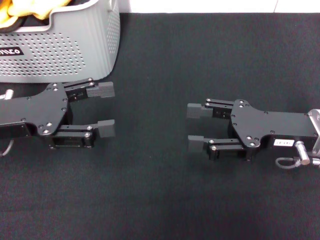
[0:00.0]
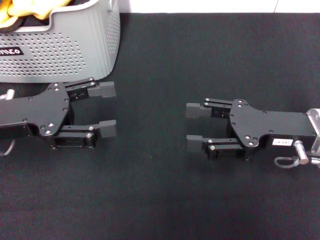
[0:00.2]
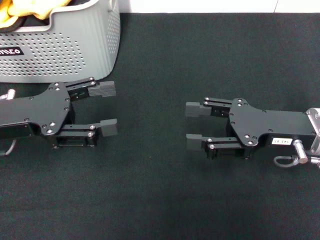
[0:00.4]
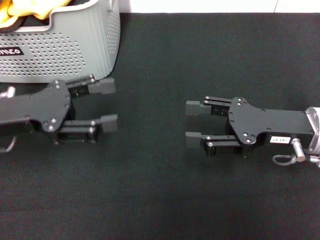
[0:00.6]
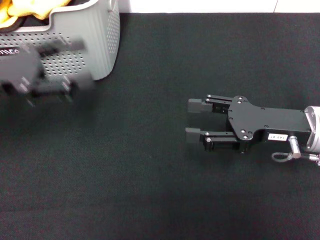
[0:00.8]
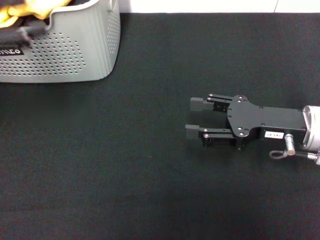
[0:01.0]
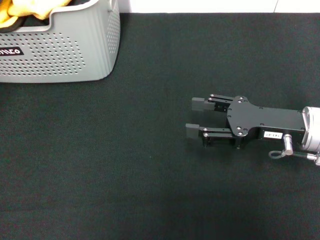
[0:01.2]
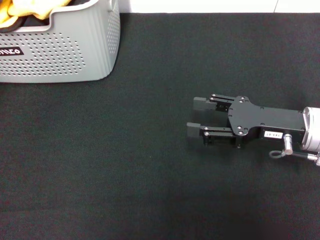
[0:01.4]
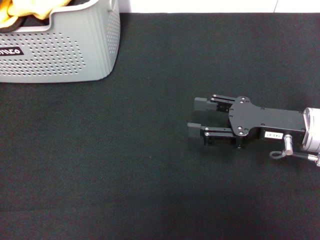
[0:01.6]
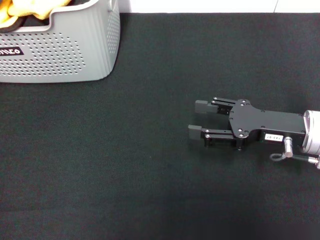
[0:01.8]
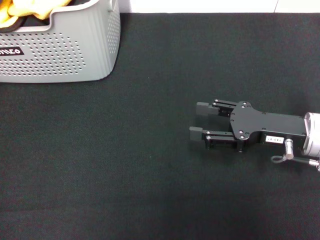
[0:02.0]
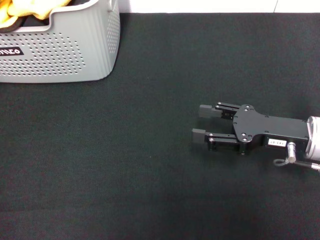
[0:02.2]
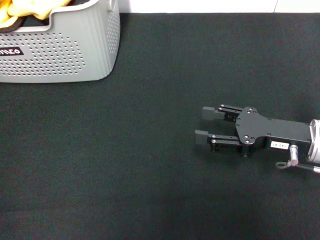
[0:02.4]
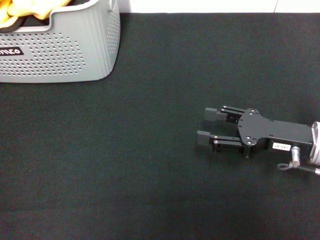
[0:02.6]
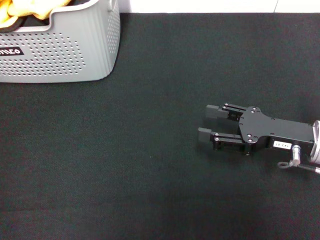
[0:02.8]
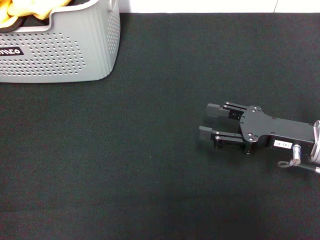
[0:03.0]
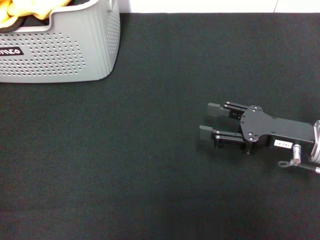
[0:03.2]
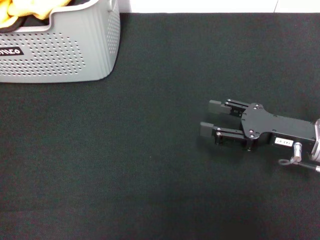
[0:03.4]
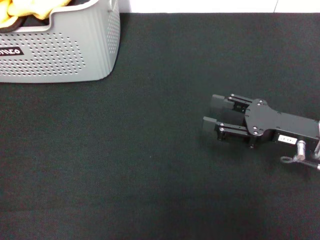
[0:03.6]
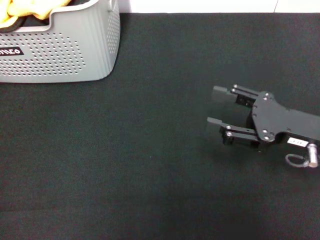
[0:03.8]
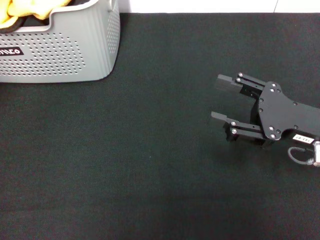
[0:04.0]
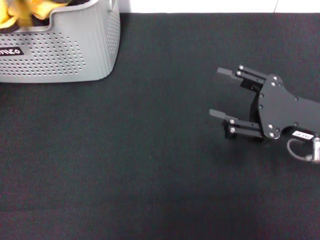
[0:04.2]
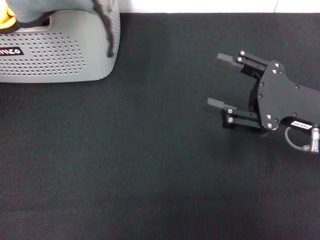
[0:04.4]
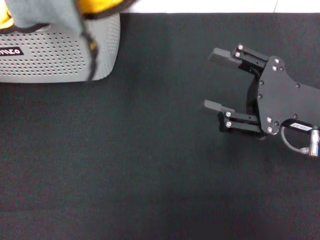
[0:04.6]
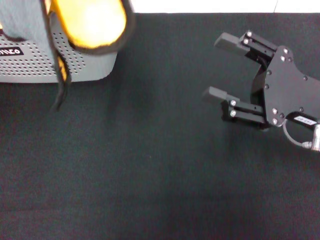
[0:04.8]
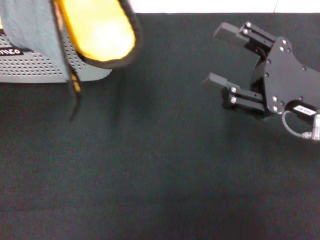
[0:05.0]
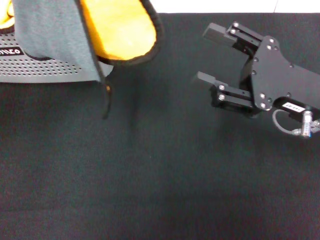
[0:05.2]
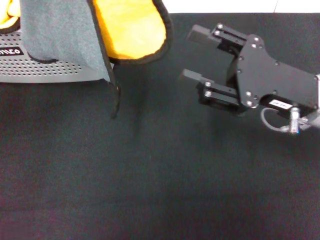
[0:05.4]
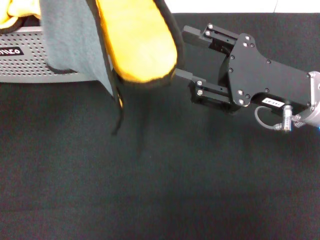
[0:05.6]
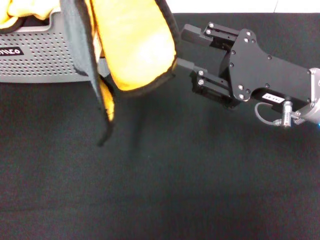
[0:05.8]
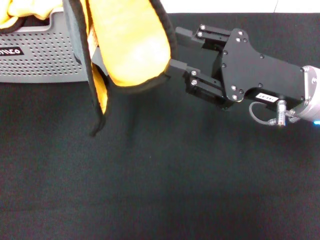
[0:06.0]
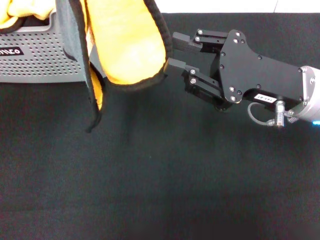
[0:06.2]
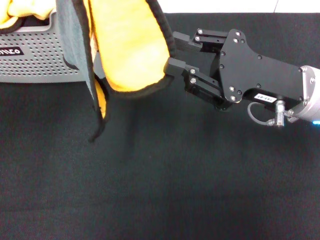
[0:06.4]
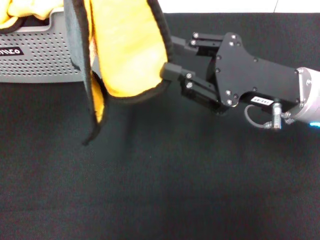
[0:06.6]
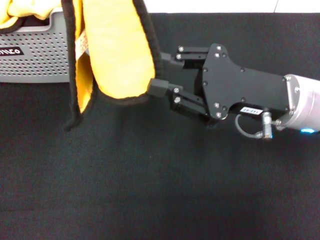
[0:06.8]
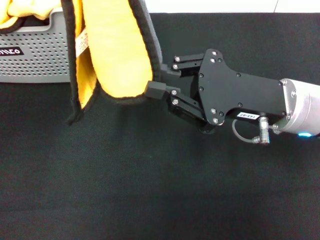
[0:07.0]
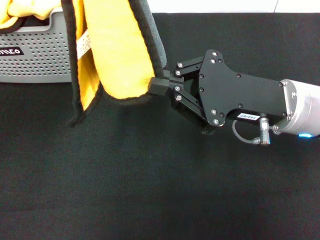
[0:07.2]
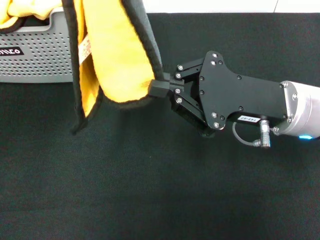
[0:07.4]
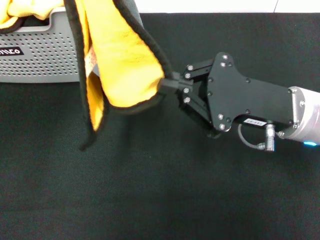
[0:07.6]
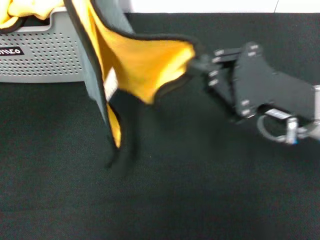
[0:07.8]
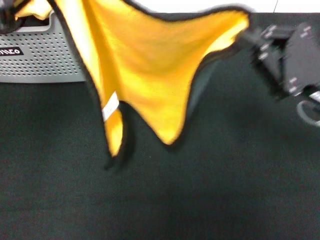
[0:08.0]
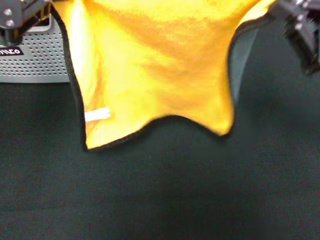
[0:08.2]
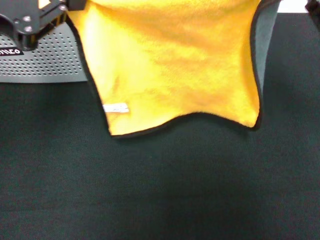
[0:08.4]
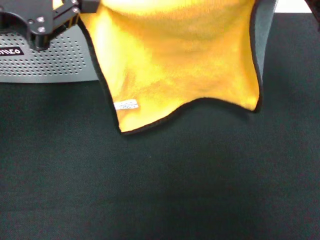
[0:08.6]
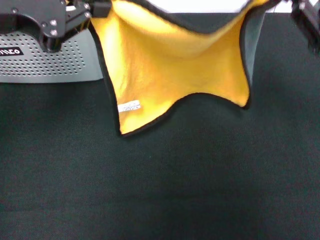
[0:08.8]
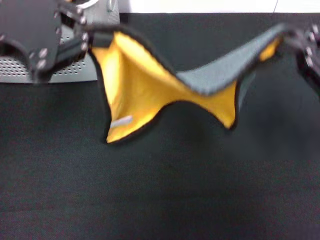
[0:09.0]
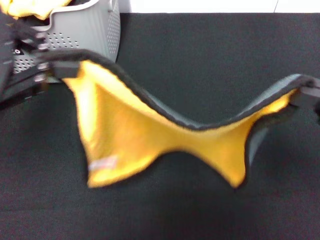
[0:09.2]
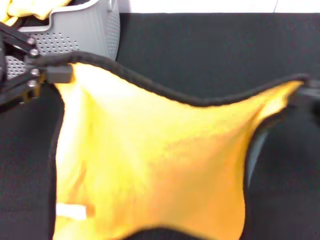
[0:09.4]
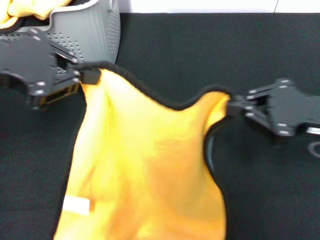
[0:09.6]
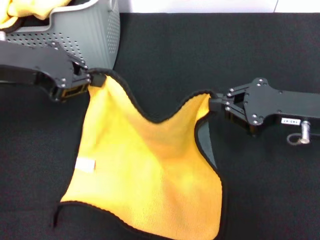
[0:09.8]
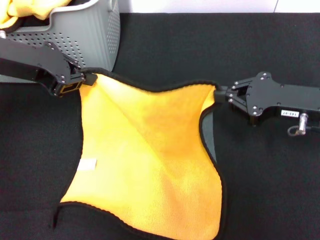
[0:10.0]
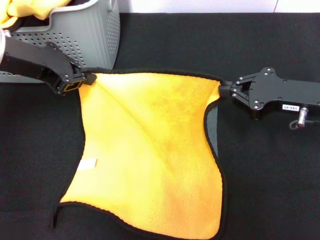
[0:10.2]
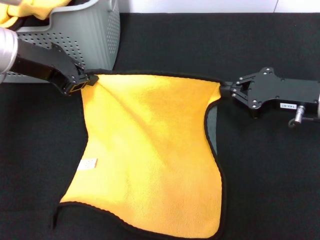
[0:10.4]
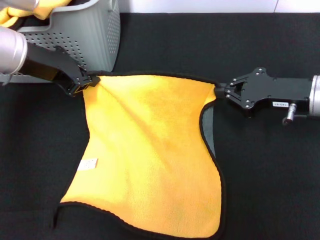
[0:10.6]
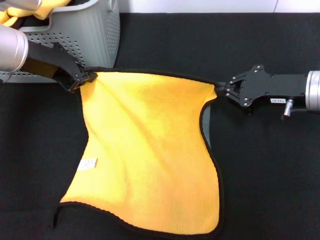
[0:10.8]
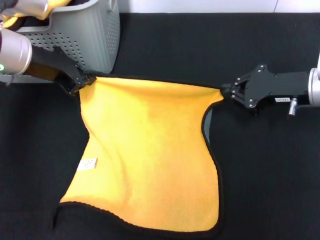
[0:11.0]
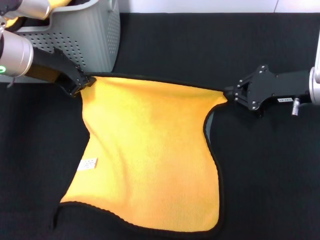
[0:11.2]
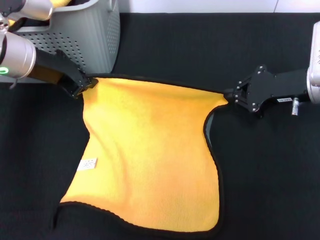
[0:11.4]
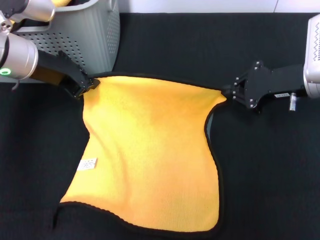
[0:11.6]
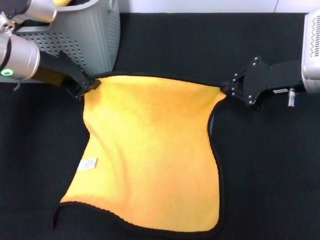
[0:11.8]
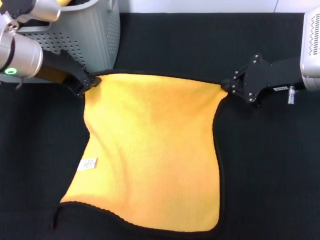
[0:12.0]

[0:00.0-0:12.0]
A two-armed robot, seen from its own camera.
Task of the whole recording: pick up the towel from the storage box and lay it flat on the black tablecloth.
Step, 0:00.0 to 0:03.4: Pick up a towel with the left gripper.
Step, 0:03.6 to 0:07.2: Spread the towel flat with the left gripper.
0:00.0 to 0:01.6: The left gripper heads upward and to the left, covering roughly 20 cm.
0:03.0 to 0:04.4: The left gripper is displaced upward, backward and to the right by some 20 cm, and closes its fingers.
0:04.4 to 0:06.0: The left gripper ends up approximately 5 cm from where it was; the right gripper shifts about 5 cm to the left.
0:06.0 to 0:07.6: The right gripper closes.
0:07.6 to 0:09.0: The left gripper goes about 5 cm downward; the right gripper heads to the right, covering roughly 10 cm.
0:09.0 to 0:10.4: The left gripper is displaced downward and forward by roughly 15 cm, while the right gripper heads forward and downward, covering some 10 cm.
0:10.4 to 0:12.0: The right gripper travels forward by approximately 5 cm.

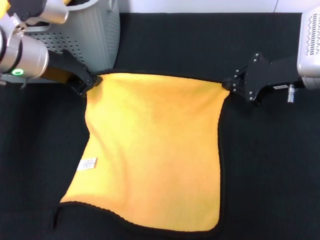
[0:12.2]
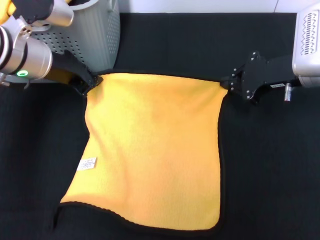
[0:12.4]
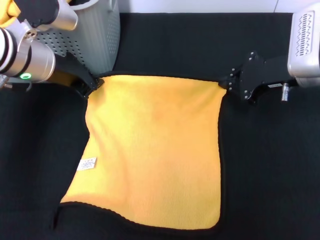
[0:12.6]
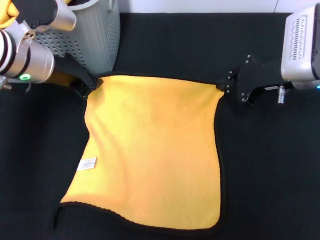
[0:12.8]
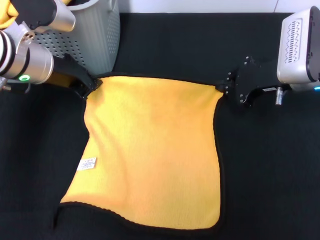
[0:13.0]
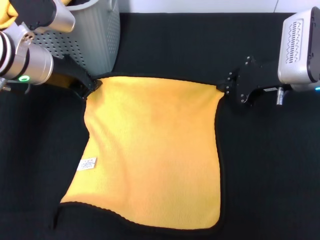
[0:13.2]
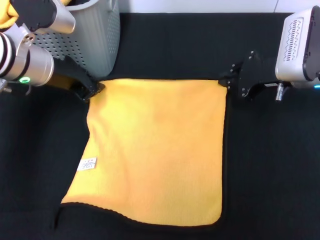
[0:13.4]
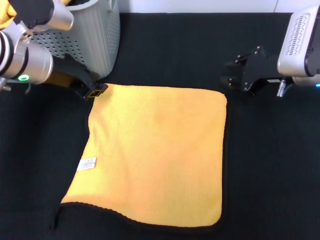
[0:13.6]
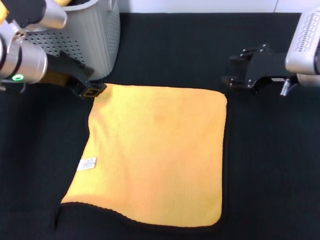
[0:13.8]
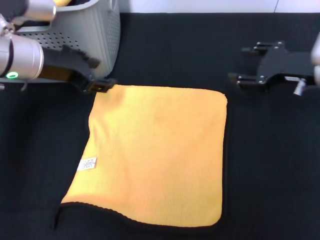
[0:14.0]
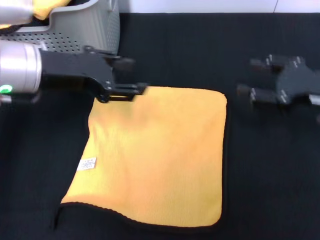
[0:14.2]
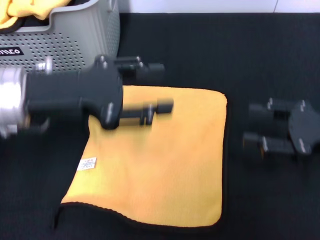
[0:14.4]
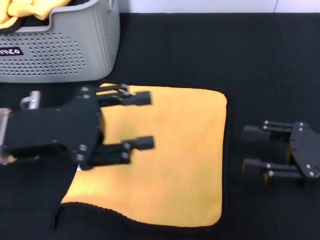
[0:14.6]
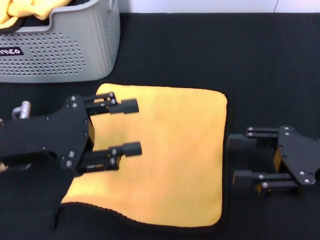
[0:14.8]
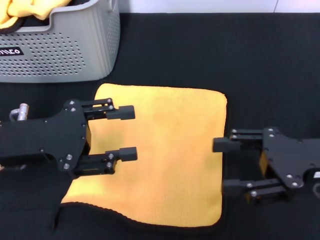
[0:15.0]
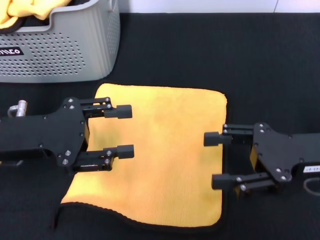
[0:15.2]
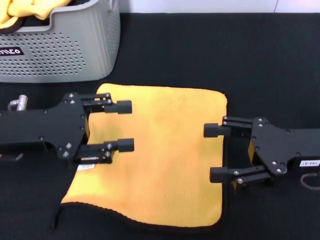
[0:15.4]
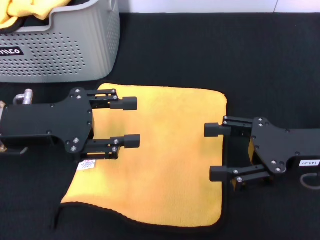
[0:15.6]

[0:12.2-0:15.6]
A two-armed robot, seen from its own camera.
Task of the whole recording: pick up the towel from the storage box and lay it flat on the black tablecloth.
0:12.2 to 0:13.8: The left gripper opens up.
0:13.8 to 0:15.6: The two grippers go some 10 cm backward. The right gripper opens up.

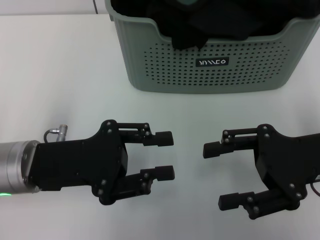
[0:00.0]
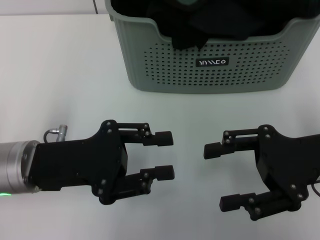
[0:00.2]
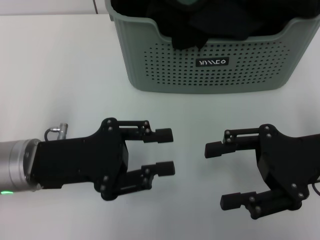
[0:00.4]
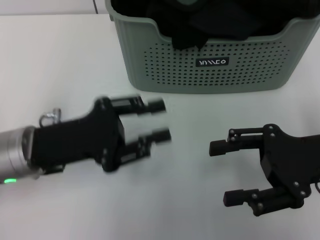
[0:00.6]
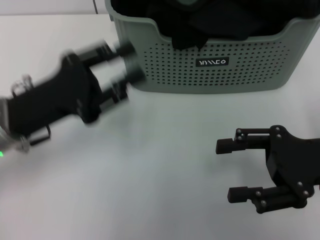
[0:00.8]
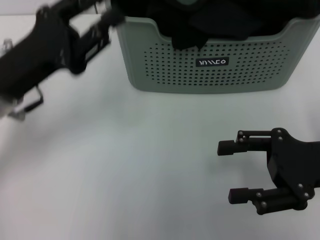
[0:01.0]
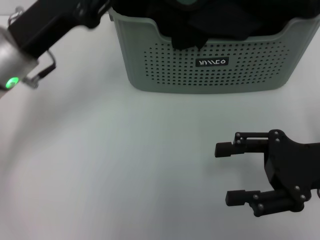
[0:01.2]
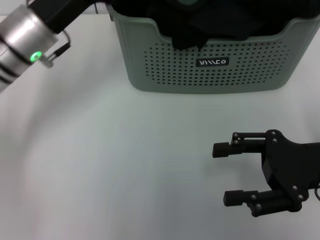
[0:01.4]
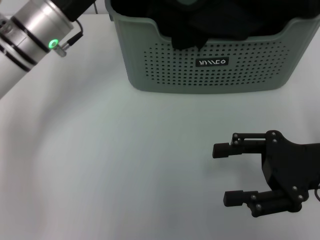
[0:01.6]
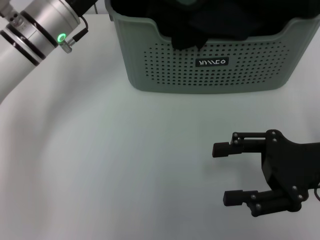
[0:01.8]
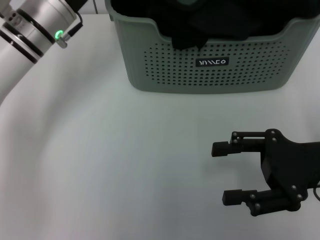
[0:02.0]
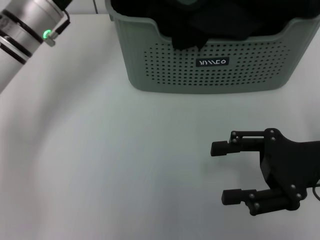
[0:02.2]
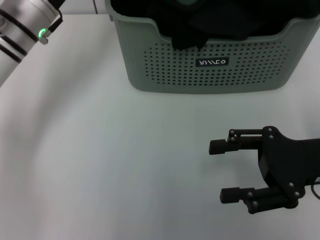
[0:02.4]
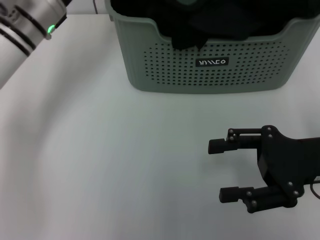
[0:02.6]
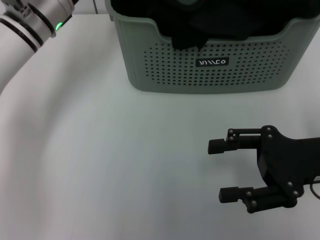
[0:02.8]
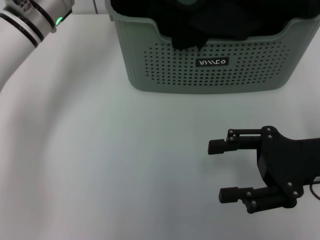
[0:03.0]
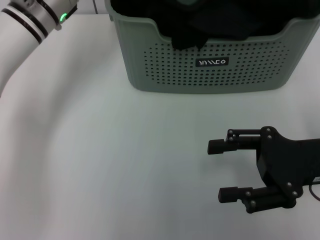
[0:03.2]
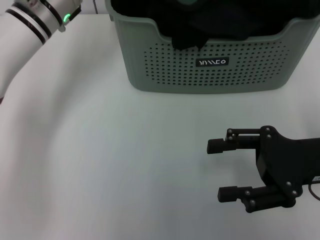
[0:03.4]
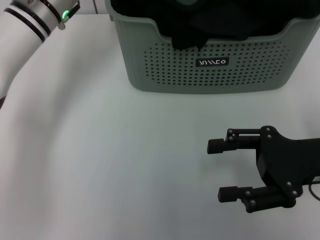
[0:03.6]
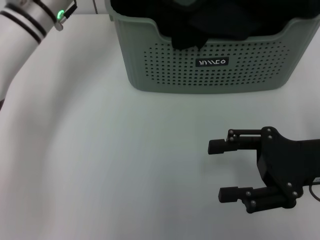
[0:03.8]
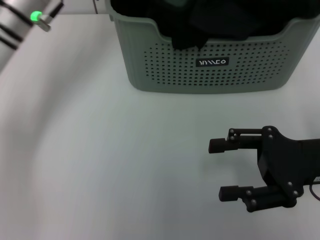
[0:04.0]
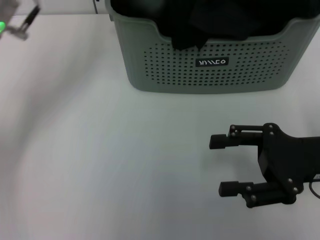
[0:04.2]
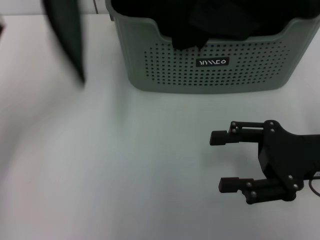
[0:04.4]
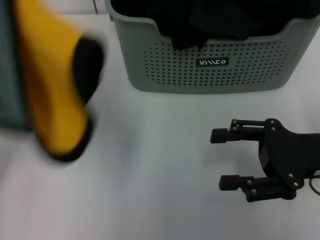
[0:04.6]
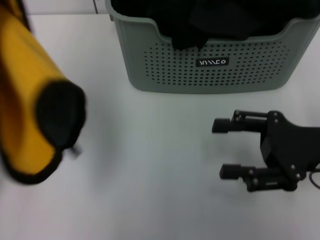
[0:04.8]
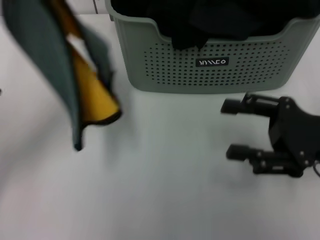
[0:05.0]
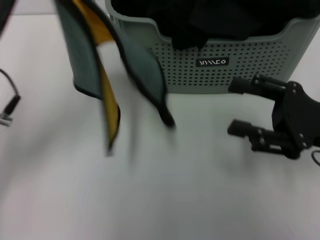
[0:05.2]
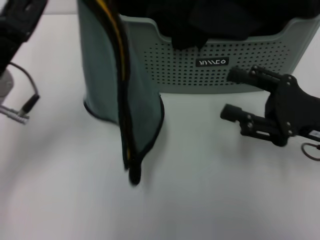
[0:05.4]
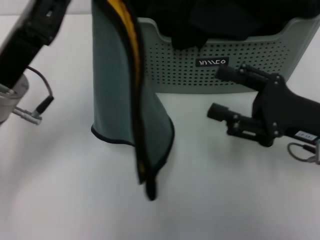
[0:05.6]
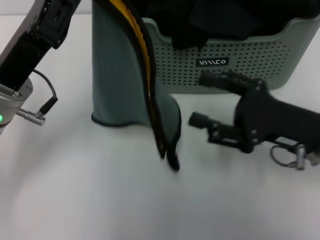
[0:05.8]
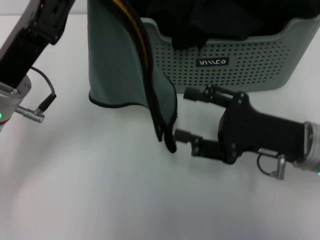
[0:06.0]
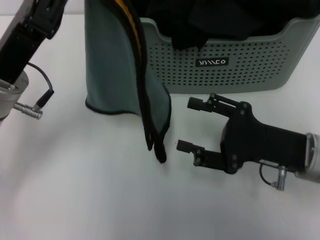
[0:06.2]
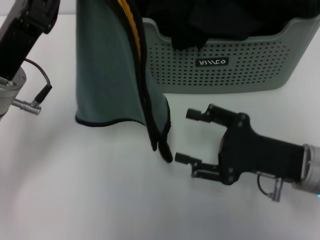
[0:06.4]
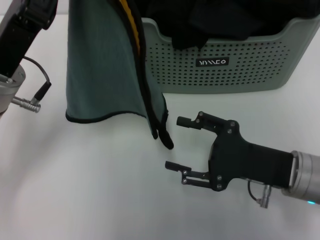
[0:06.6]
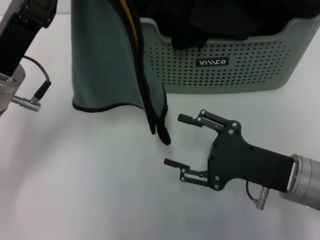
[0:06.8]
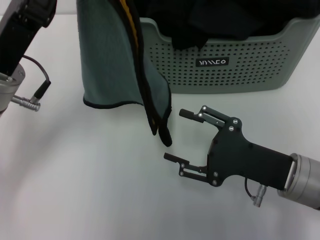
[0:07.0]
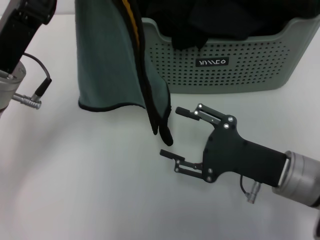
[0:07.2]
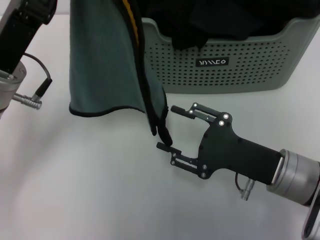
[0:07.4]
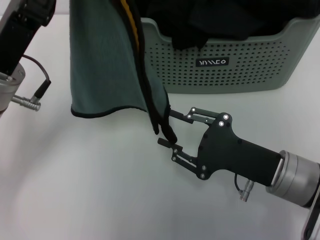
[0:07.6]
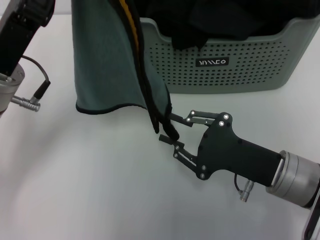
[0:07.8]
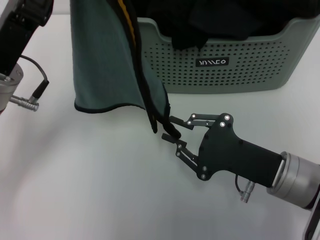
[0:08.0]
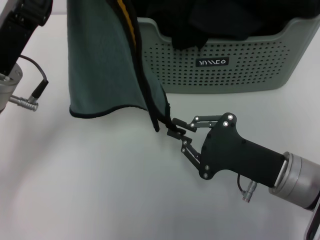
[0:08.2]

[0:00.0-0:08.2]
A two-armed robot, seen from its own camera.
Task of the whole recording: pick up the towel from the storage box and lay it flat on the table.
Step, 0:00.0 to 0:04.0: Pick up a towel with the left gripper.
0:00.0 to 0:01.6: The left gripper goes approximately 15 cm forward.
0:03.2 to 0:05.0: The left gripper goes approximately 15 cm backward and to the left, and closes.
0:05.0 to 0:06.6: The right gripper shifts roughly 10 cm to the left and downward.
0:06.6 to 0:08.2: The right gripper closes its fingers.
